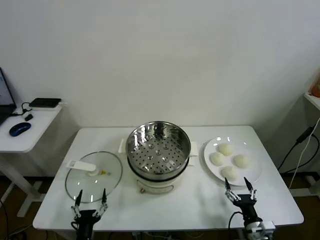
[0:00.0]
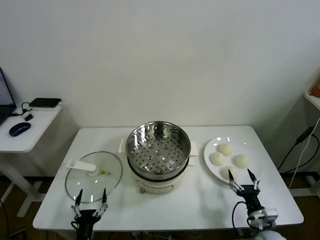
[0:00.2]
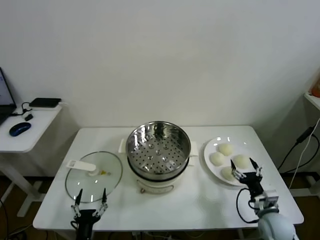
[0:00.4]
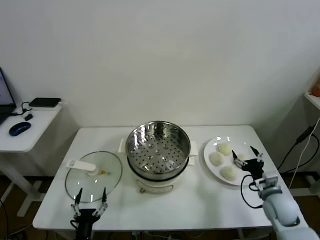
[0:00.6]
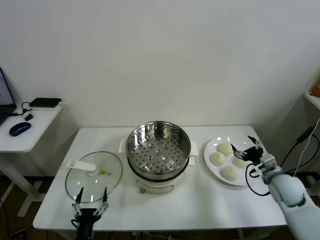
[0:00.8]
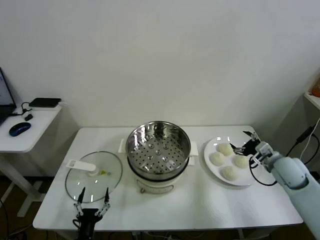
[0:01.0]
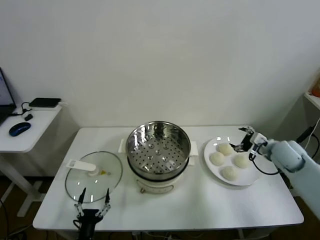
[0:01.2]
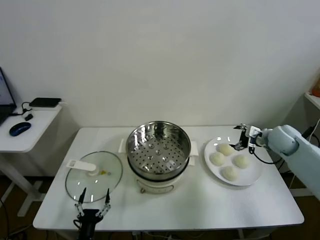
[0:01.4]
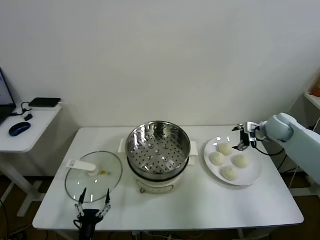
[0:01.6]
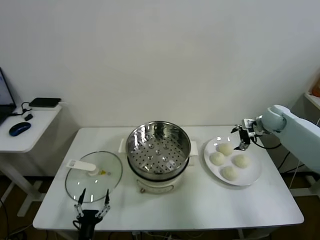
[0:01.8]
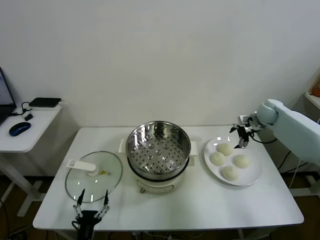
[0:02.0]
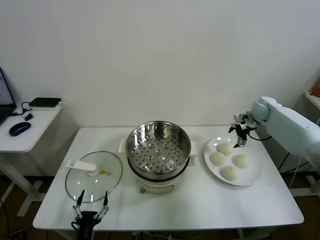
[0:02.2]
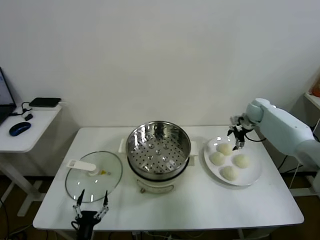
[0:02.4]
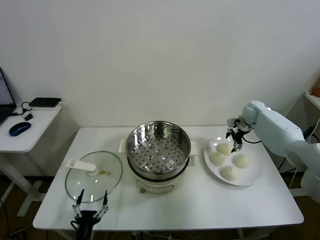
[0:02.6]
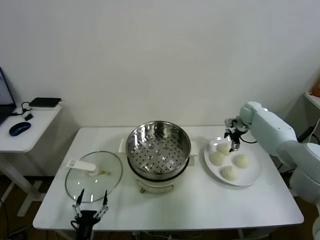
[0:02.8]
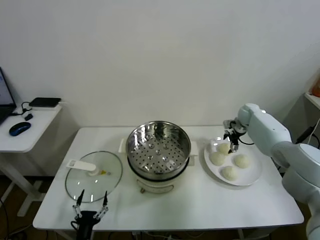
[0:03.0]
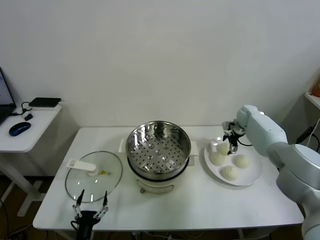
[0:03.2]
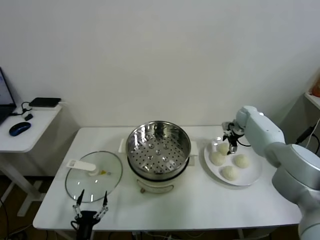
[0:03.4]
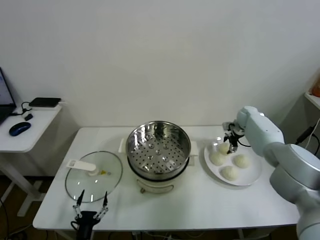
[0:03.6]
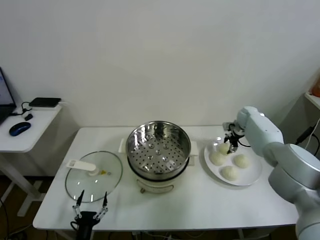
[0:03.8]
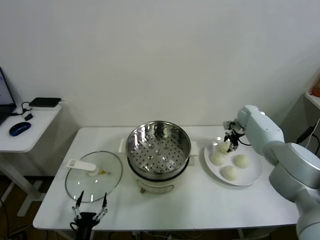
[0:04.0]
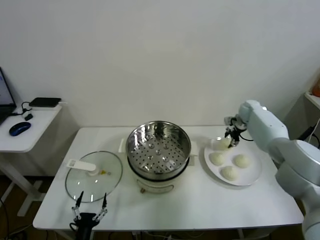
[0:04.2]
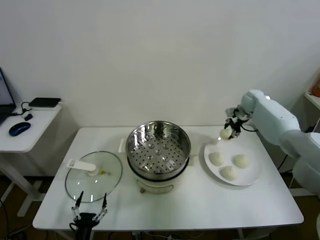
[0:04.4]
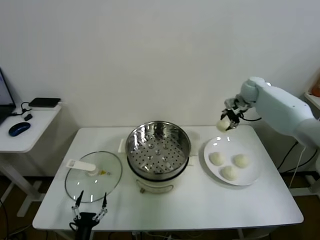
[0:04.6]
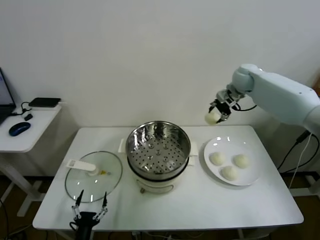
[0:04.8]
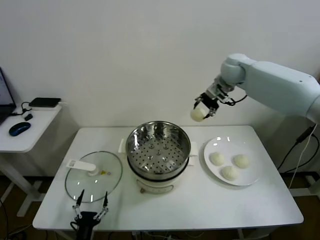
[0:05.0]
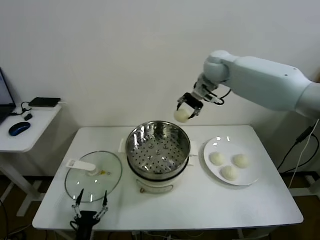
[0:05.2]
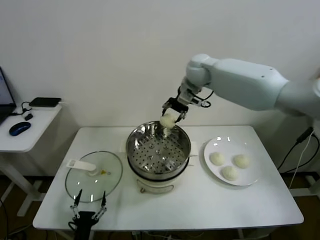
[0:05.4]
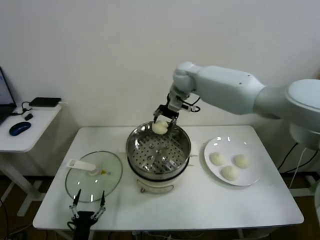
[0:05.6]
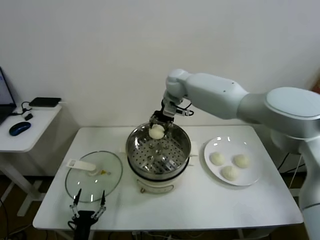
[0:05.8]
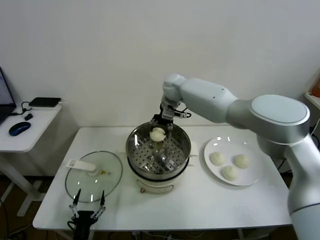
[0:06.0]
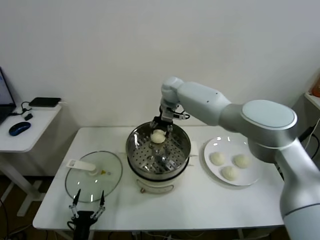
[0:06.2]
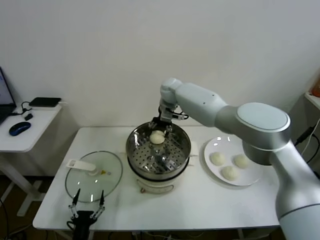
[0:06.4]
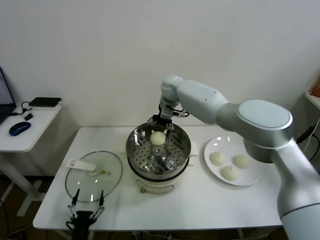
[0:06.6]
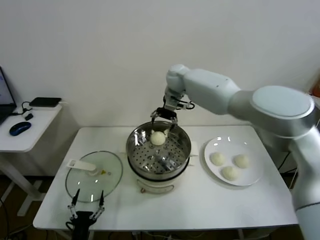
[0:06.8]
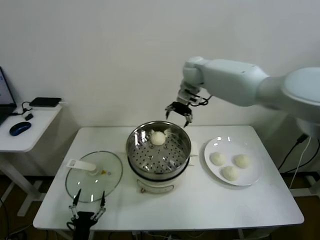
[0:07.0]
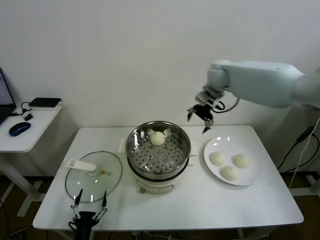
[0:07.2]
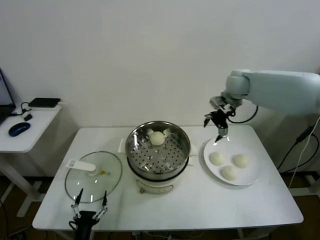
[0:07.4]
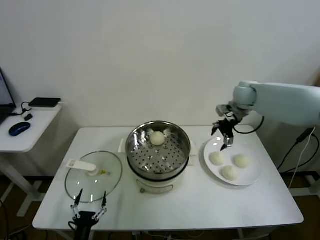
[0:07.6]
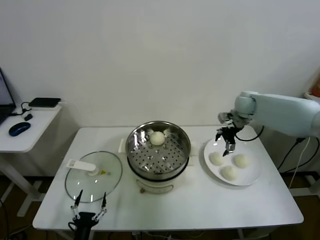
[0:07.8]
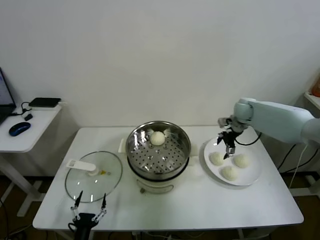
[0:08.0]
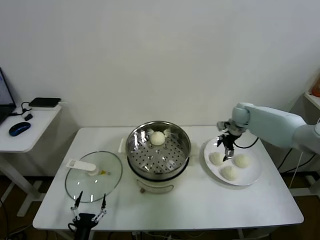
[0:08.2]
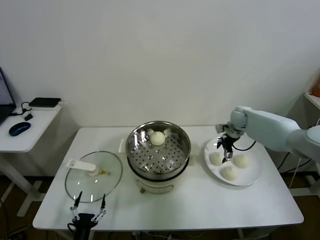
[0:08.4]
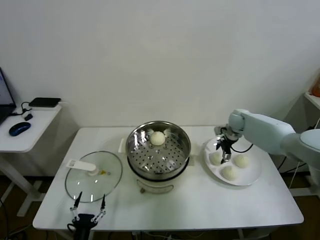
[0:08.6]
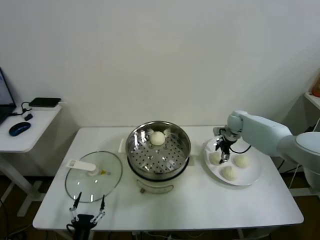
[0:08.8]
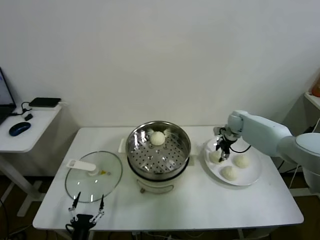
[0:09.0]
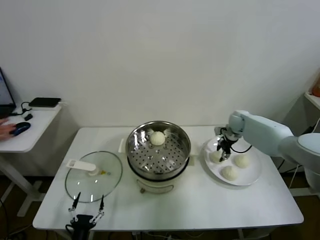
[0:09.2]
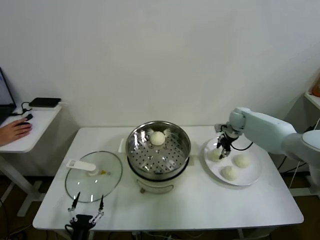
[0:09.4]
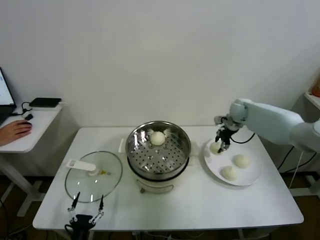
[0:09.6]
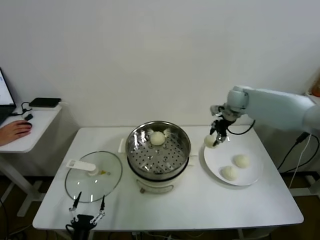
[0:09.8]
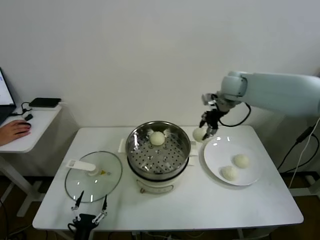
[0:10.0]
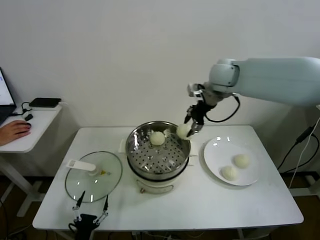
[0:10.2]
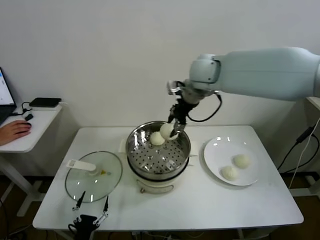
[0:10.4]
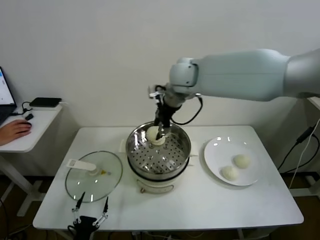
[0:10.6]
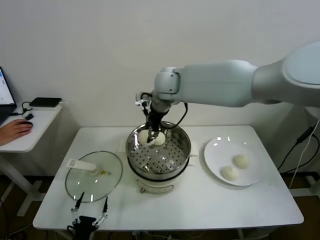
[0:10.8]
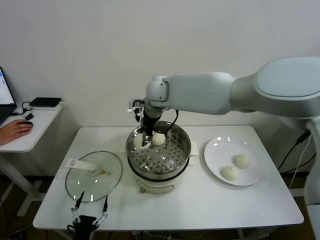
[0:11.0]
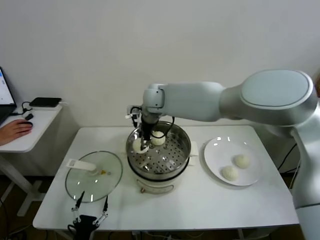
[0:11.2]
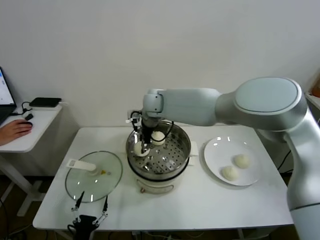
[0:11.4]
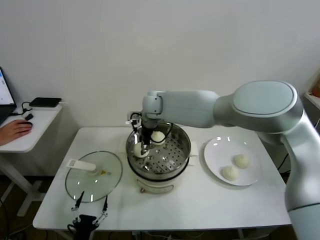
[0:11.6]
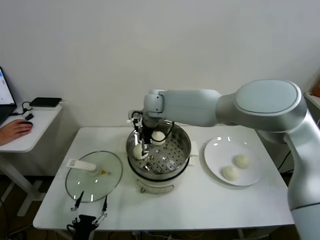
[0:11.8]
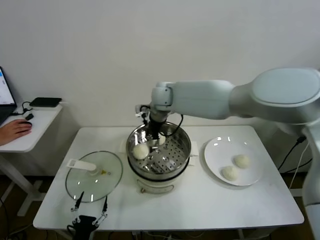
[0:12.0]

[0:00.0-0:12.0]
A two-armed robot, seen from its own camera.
Task of the whole recording: take steamed baozi put them in steamer.
Step, 0:00.0 to 0:03.8: Grasp the baozi in the plate with right gripper.
Step, 0:04.0 to 0:06.6: Place the baozi on the steamer with right gripper.
Step, 0:06.8 to 0:09.0: Grasp the baozi in the plate with right gripper.
Step, 0:09.2 to 0:11.8: Place the baozi on the steamer with right gripper.
0:01.6 to 0:03.0: The right gripper shifts about 10 cm forward and downward.
0:03.0 to 0:04.4: The right gripper moves upward, some 10 cm, and closes up.
0:04.4 to 0:06.0: The right gripper goes some 35 cm to the left.
0:06.0 to 0:07.6: The right gripper shifts some 25 cm to the right, and opens.
0:07.6 to 0:09.0: The right gripper shifts approximately 15 cm downward, and closes up.
0:09.0 to 0:10.4: The right gripper is displaced upward and to the left by approximately 35 cm.
0:10.4 to 0:12.0: The right gripper travels downward and to the left by approximately 15 cm, and opens up.

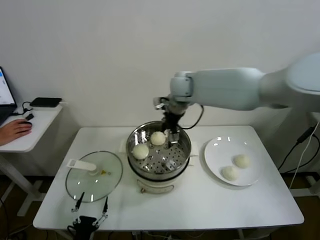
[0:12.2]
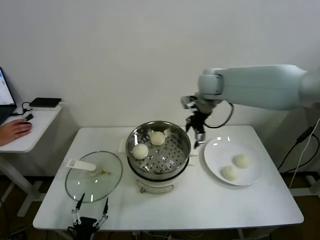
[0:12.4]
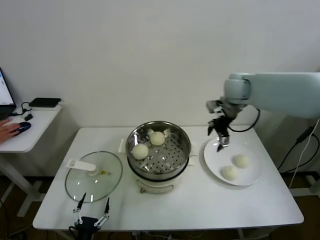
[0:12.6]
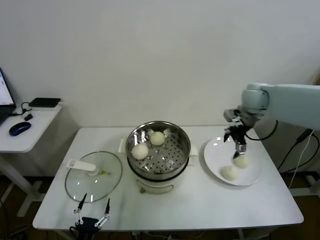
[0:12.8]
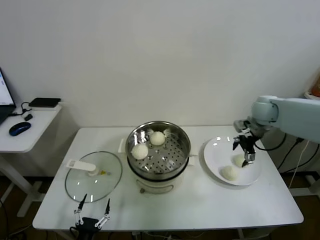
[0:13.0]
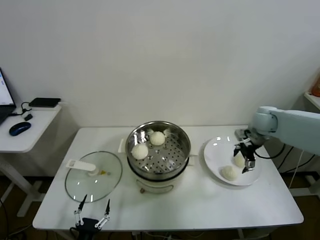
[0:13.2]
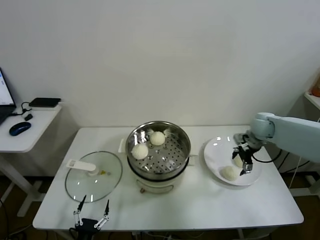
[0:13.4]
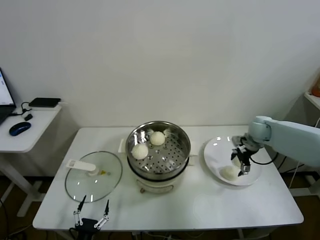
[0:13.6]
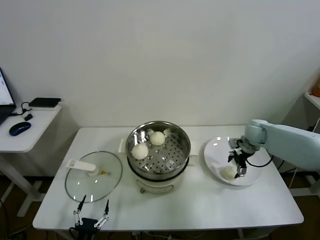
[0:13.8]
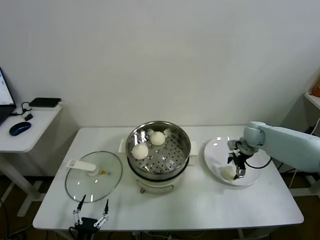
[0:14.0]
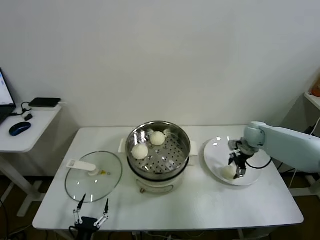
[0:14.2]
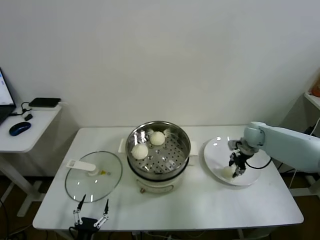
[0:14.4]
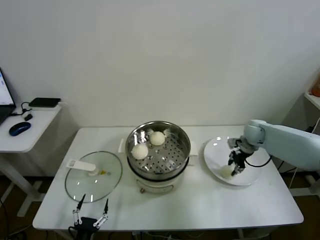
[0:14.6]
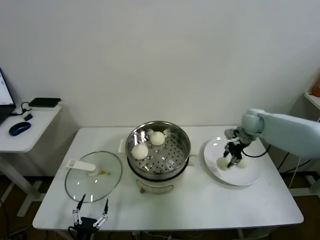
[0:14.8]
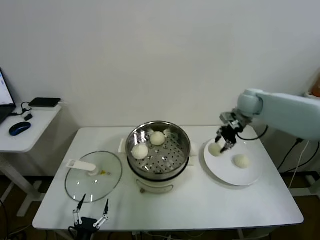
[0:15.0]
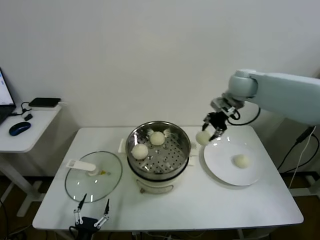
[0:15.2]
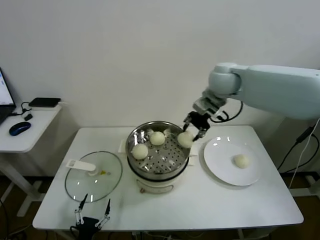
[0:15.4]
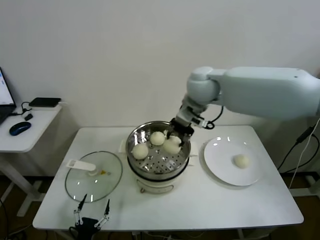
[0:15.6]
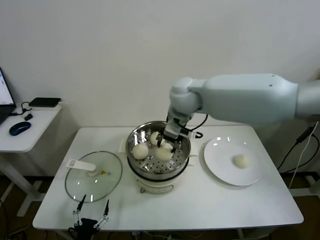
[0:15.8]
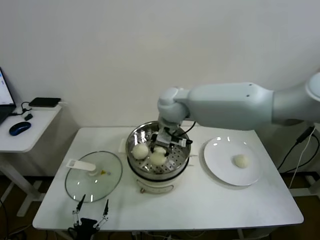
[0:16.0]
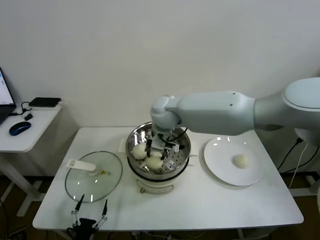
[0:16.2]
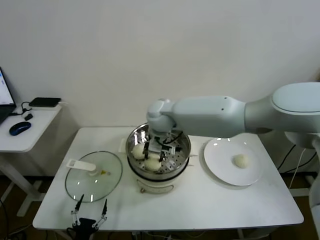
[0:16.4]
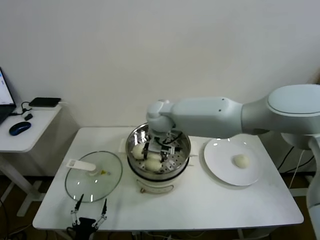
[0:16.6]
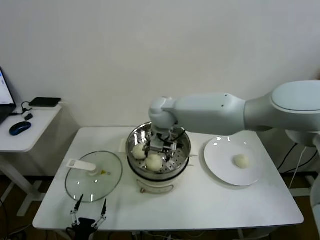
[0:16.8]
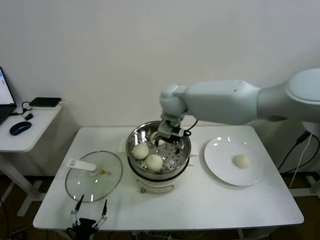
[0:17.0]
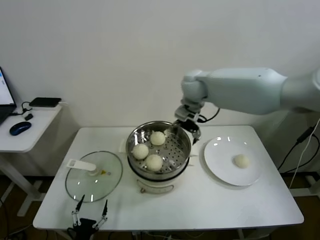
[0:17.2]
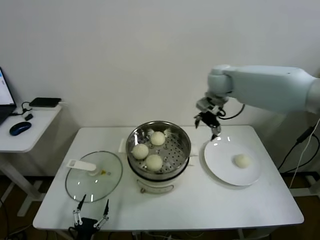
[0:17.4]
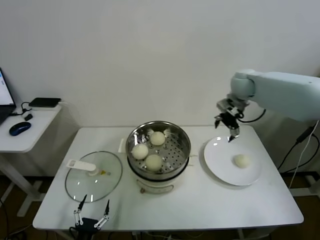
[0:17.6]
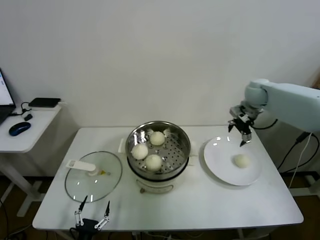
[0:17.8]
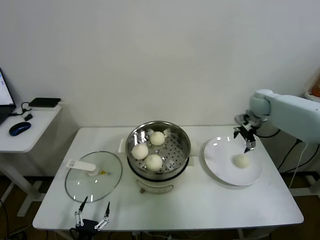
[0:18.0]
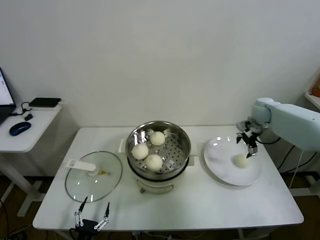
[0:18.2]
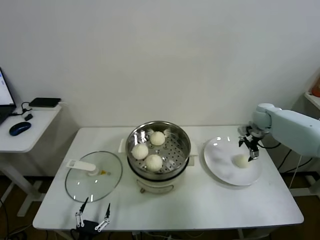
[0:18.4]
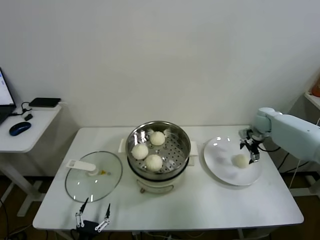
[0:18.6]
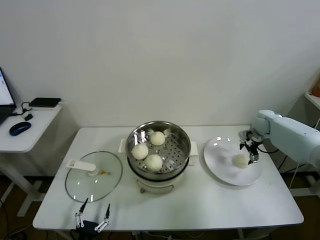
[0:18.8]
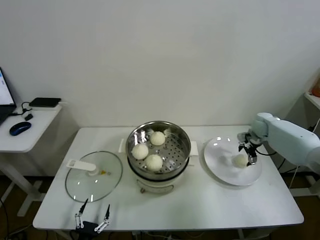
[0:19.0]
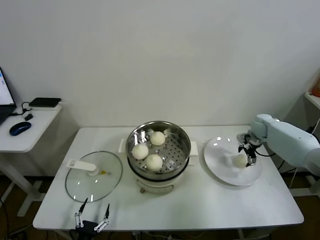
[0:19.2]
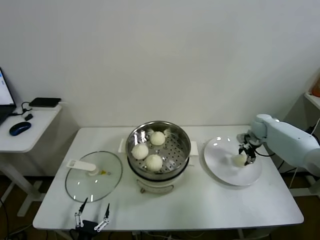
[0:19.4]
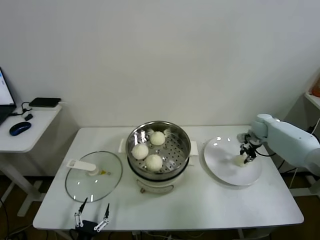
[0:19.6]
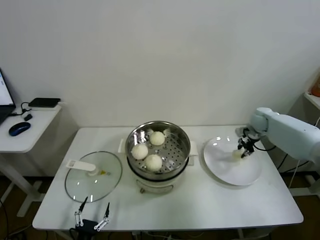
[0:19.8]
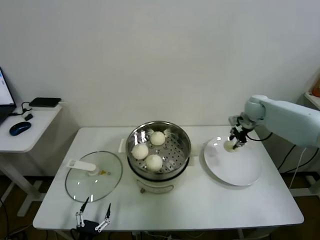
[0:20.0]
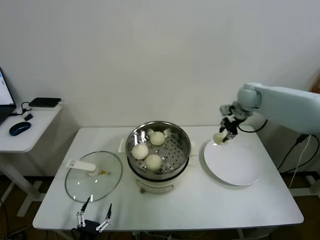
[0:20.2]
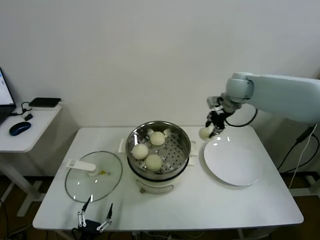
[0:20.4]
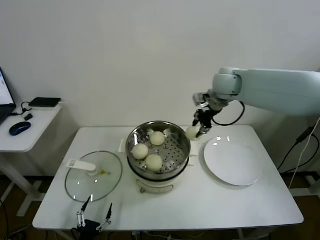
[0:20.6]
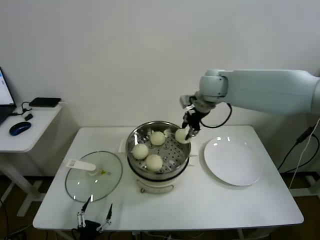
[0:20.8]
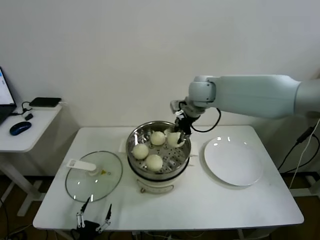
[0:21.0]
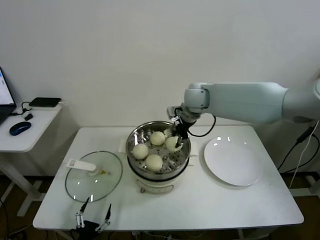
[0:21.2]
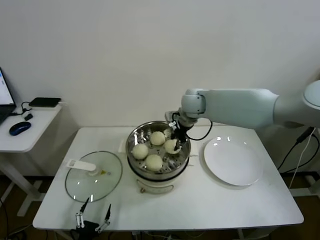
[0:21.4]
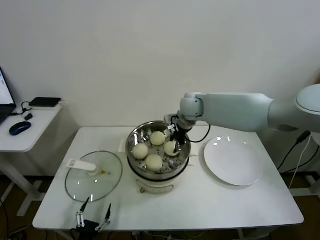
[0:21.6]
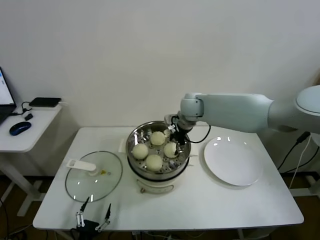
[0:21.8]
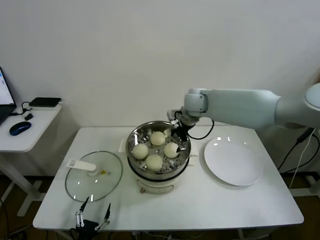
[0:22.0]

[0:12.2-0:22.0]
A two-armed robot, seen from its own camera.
Task of the whole recording: take steamed baozi put them in steamer.
Step, 0:12.2 to 0:14.4: Grasp the baozi in the plate with right gripper.
Step, 0:14.6 to 0:16.8: Place the baozi on the steamer with right gripper.
Step, 0:17.0 to 0:19.4: Grasp the baozi in the plate with right gripper.
Step, 0:19.6 to 0:21.8: Place the baozi on the steamer with right gripper.
0:12.2 to 0:13.6: The right gripper moves to the right and downward, roughly 35 cm.
0:13.6 to 0:15.0: The right gripper goes approximately 15 cm upward and to the left, and closes its fingers.
0:15.0 to 0:16.4: The right gripper heads to the left, covering roughly 30 cm.
0:16.4 to 0:17.8: The right gripper is displaced to the right by about 35 cm, and opens its fingers.
0:17.8 to 0:19.2: The right gripper heads downward and to the right, covering roughly 20 cm.
0:19.2 to 0:20.6: The right gripper heads upward and to the left, covering about 30 cm, and closes up.
0:20.6 to 0:22.0: The right gripper shifts approximately 15 cm to the left and downward, and opens its fingers.
